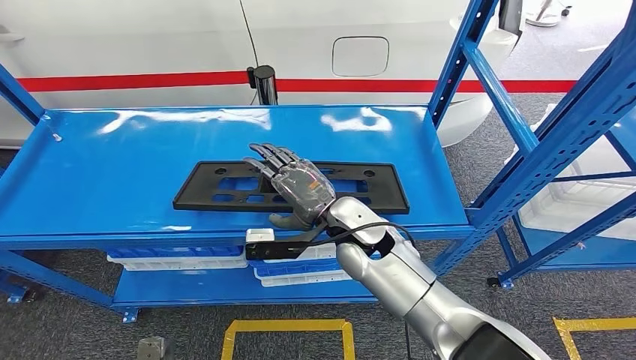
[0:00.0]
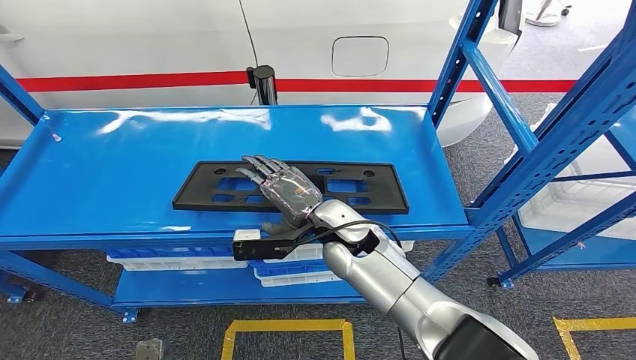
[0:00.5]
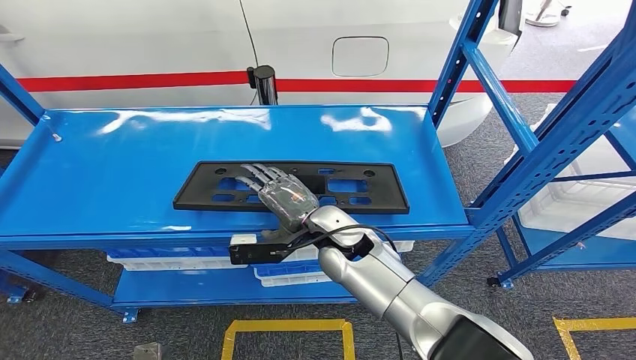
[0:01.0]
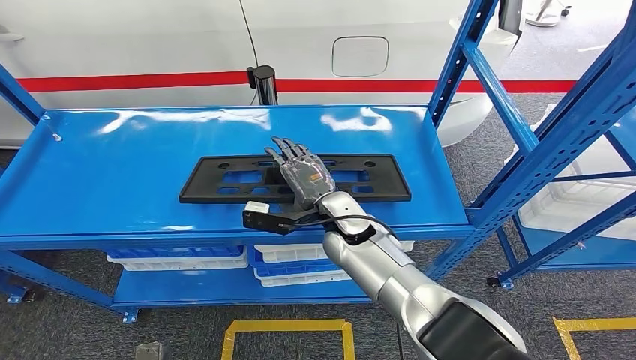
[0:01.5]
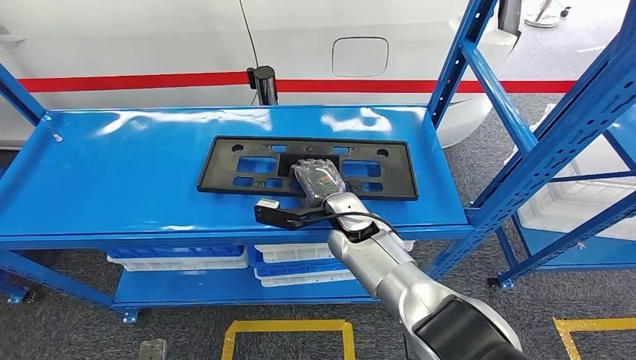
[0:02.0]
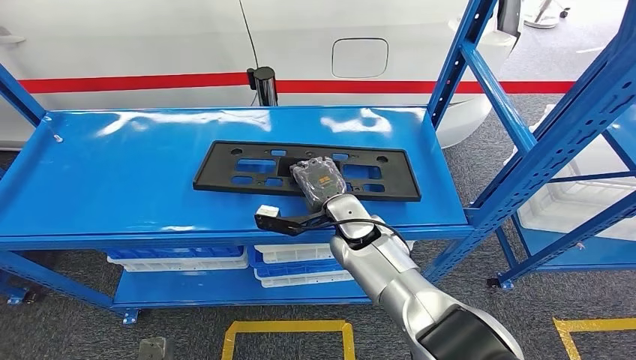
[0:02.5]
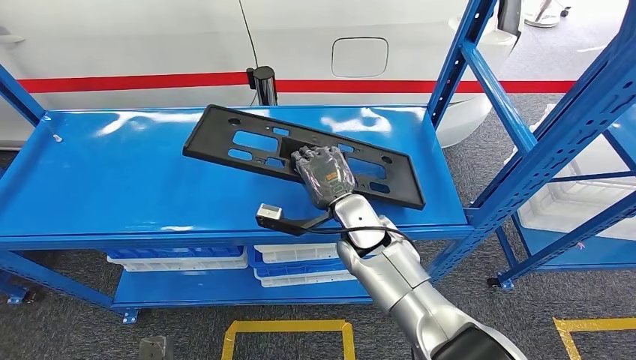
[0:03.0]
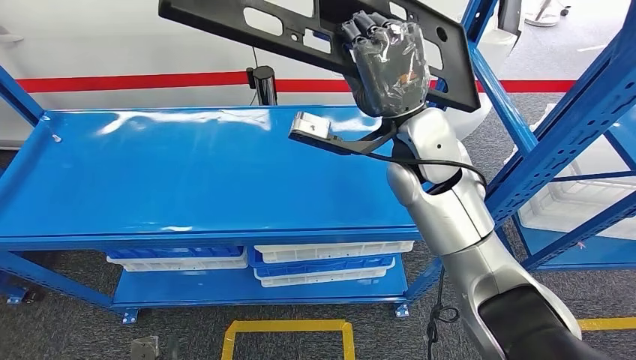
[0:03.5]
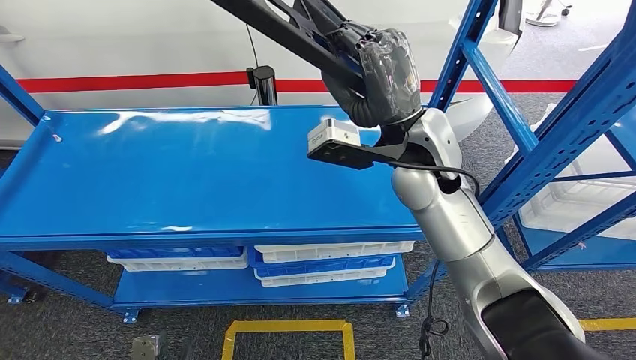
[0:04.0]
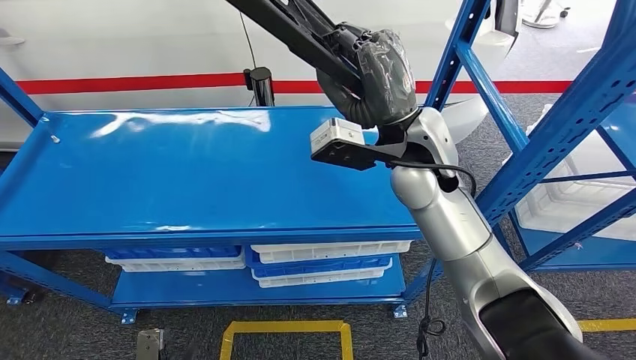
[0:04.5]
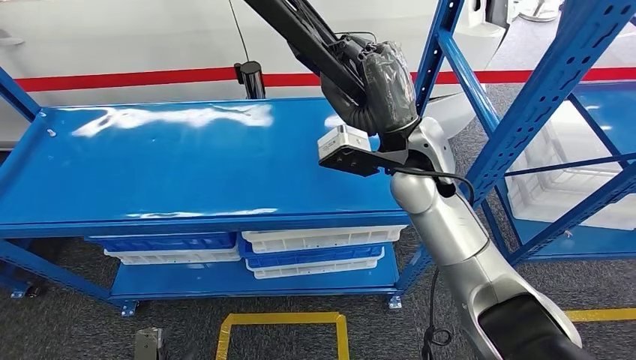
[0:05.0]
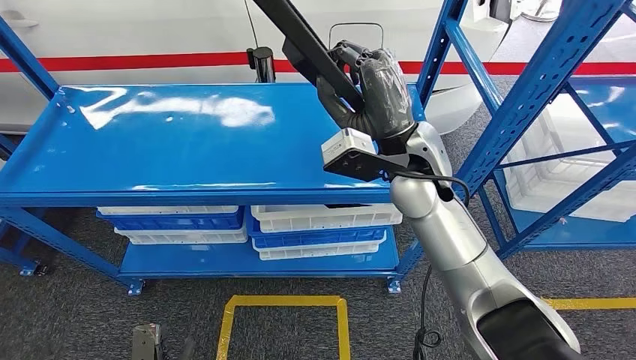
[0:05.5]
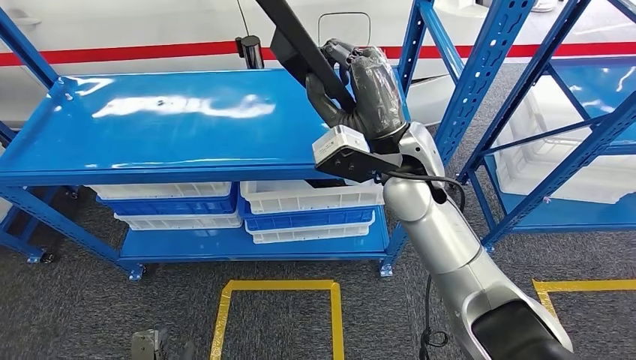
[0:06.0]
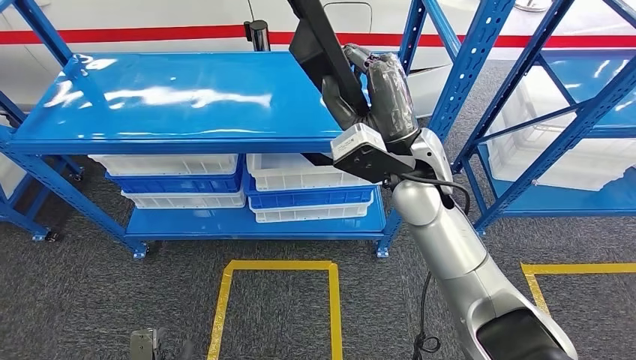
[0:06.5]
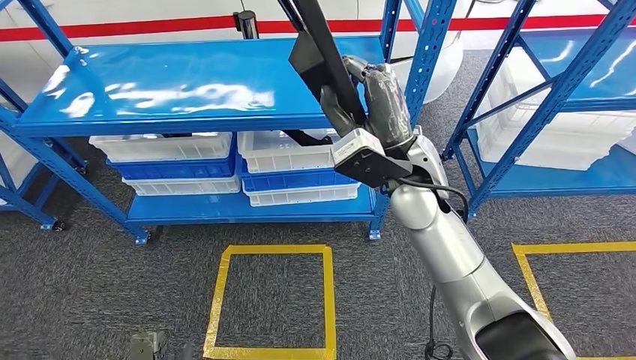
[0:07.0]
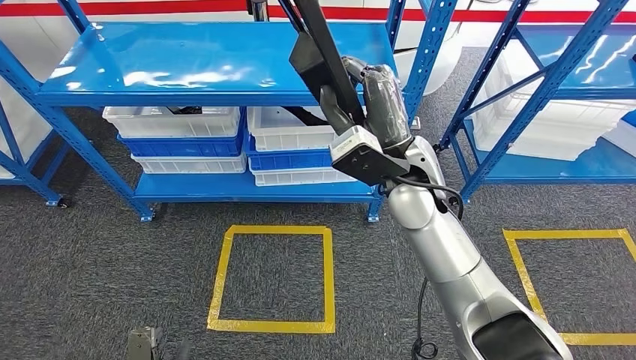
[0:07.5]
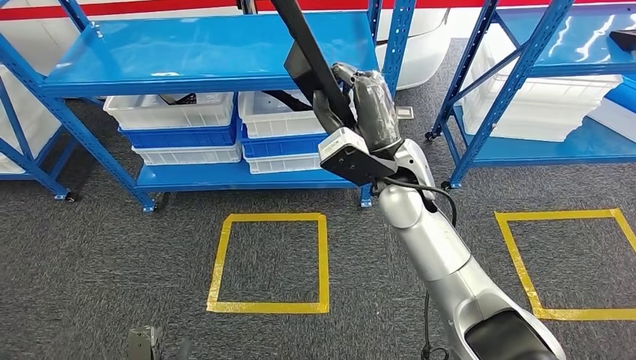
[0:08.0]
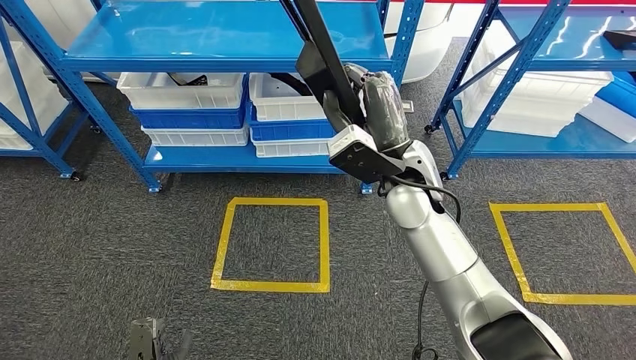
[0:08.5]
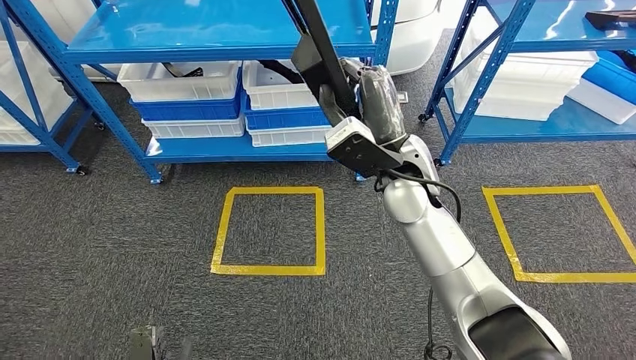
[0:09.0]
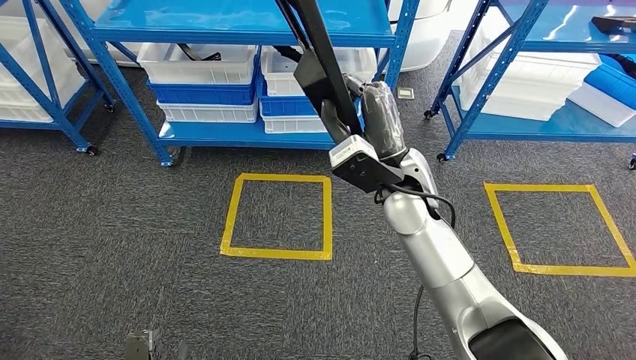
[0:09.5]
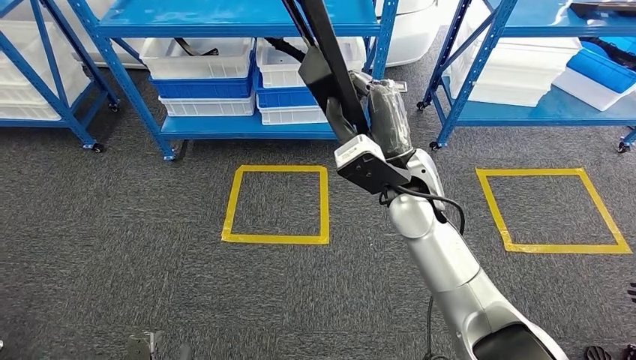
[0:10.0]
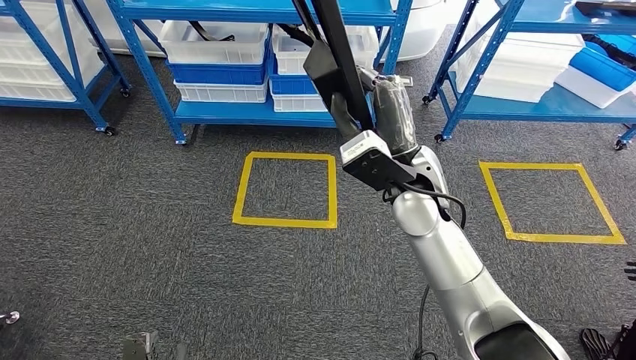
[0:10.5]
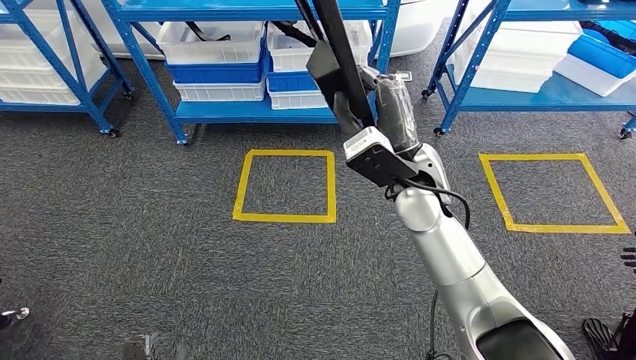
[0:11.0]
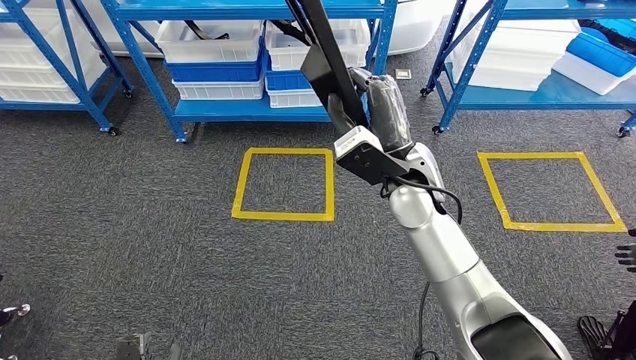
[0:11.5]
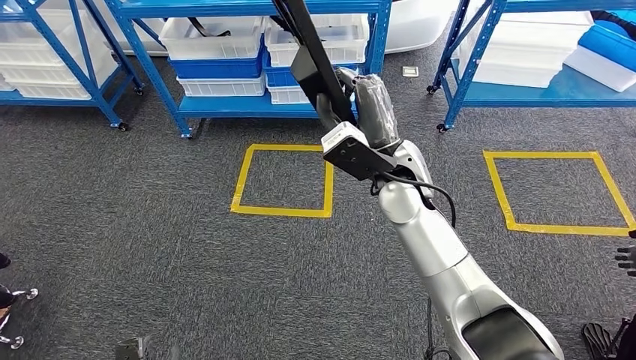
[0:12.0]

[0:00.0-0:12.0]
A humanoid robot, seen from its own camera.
Step, 0:00.0 to 0:06.0: Pick up the large material from the shelf.
0:00.0 to 0:02.0: The right hand moves forward, roughly 5 cm.

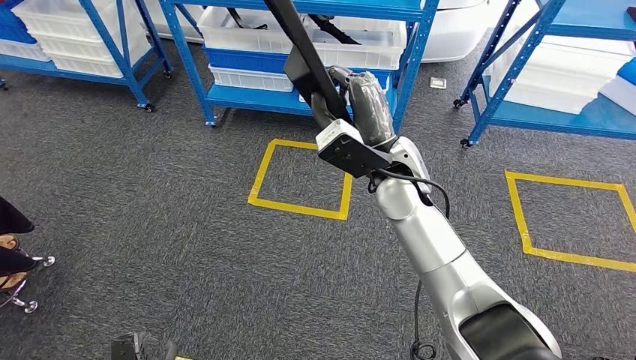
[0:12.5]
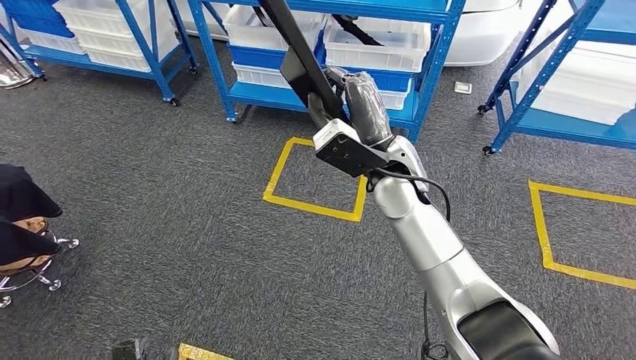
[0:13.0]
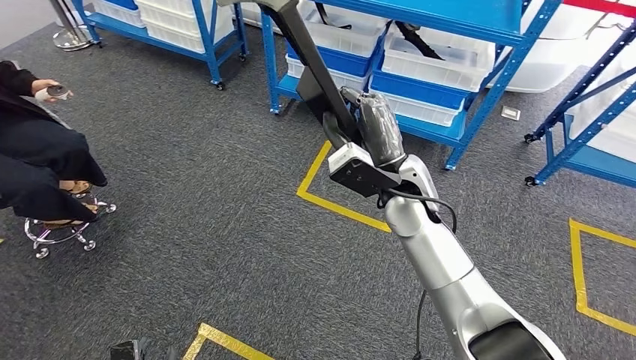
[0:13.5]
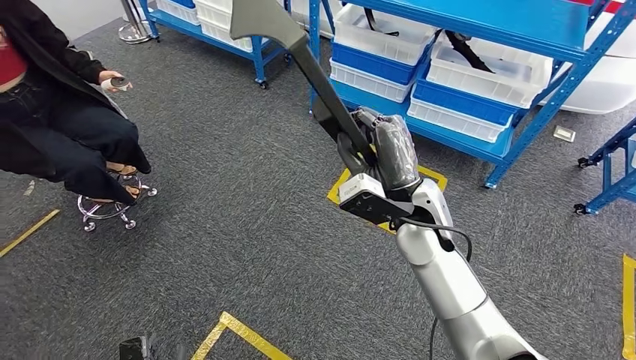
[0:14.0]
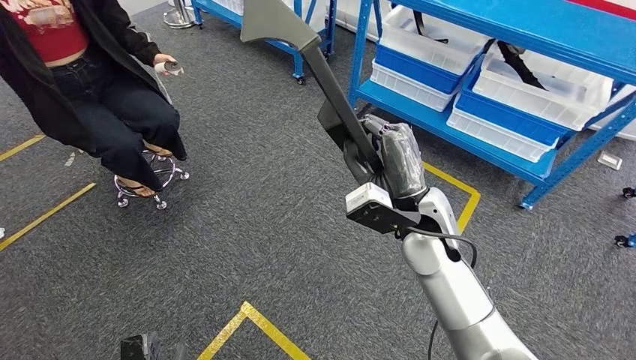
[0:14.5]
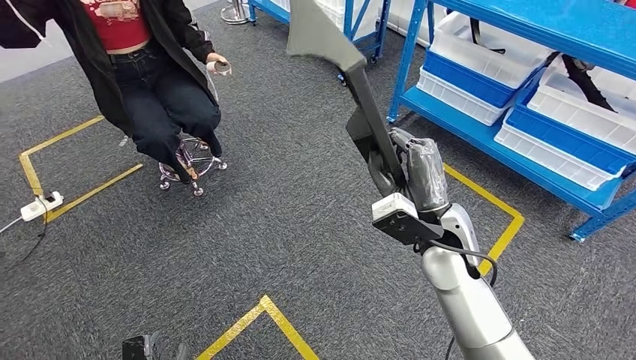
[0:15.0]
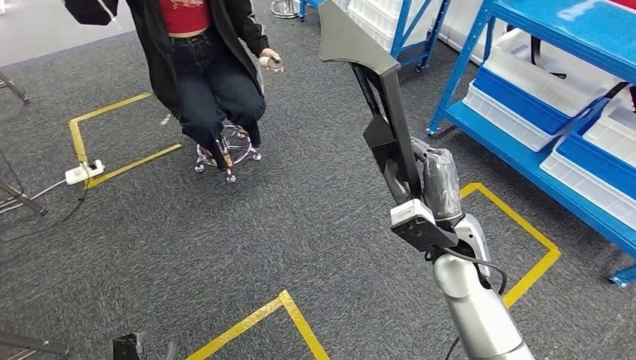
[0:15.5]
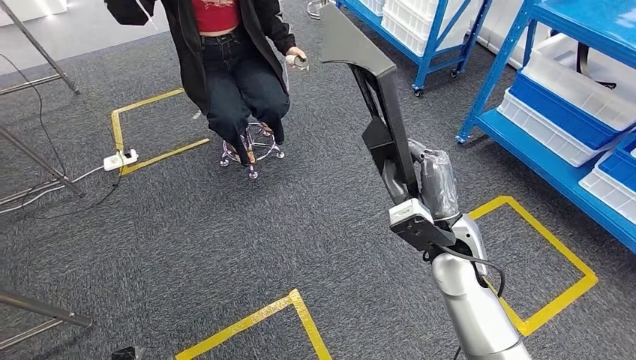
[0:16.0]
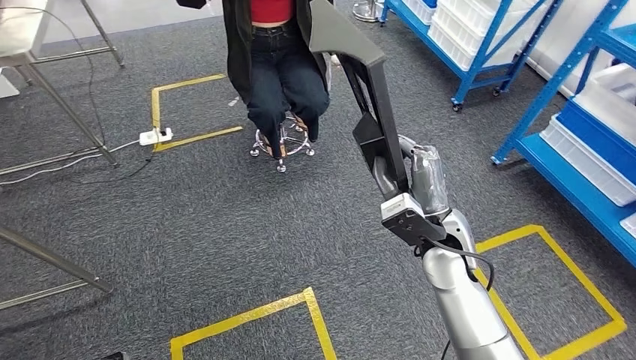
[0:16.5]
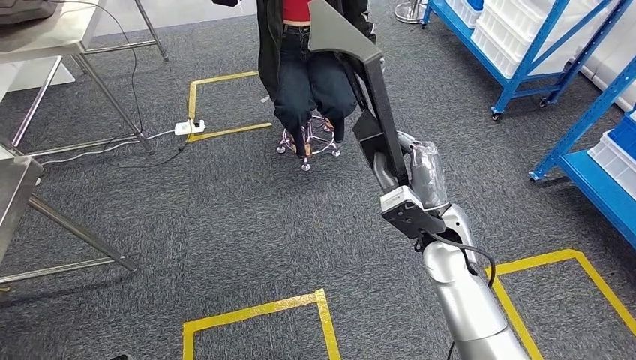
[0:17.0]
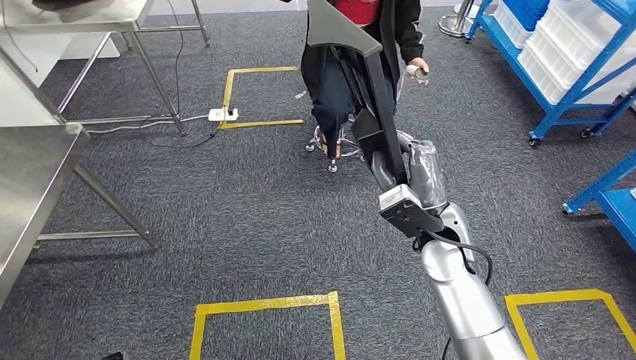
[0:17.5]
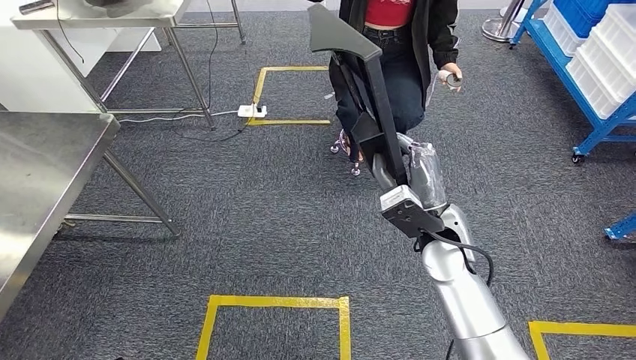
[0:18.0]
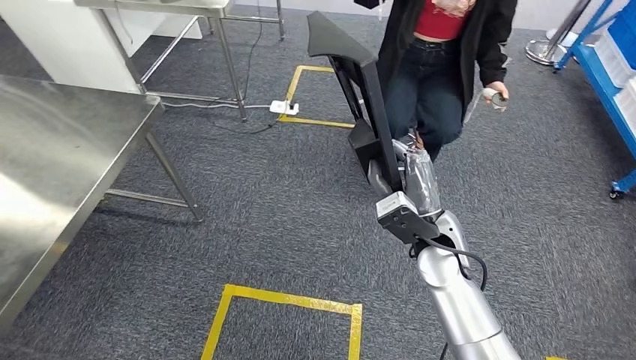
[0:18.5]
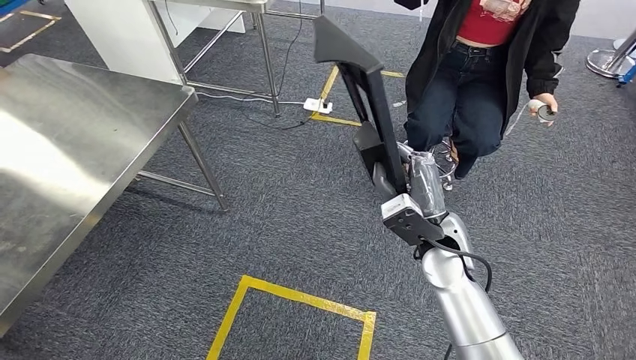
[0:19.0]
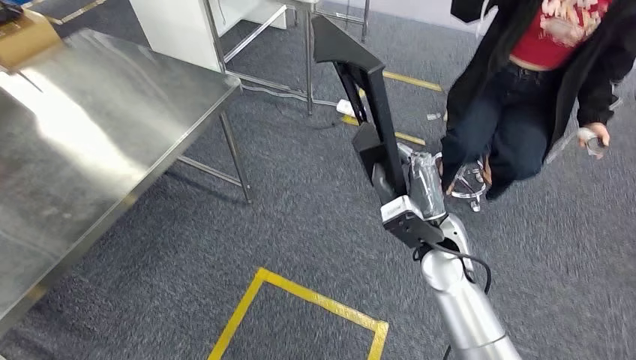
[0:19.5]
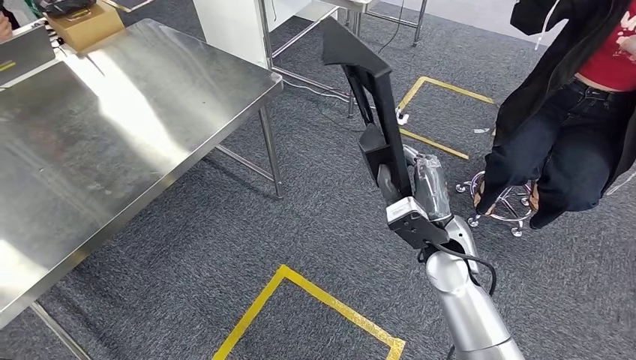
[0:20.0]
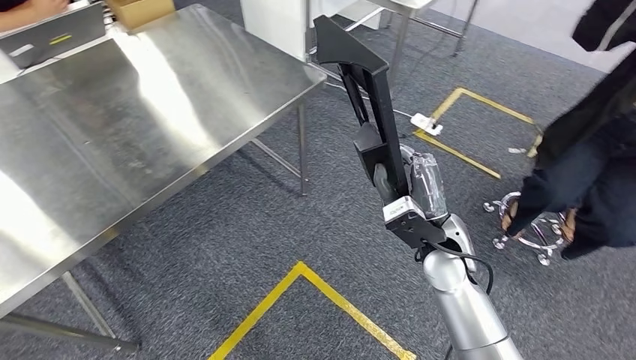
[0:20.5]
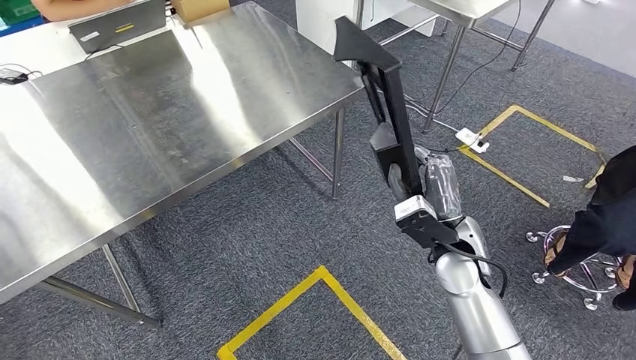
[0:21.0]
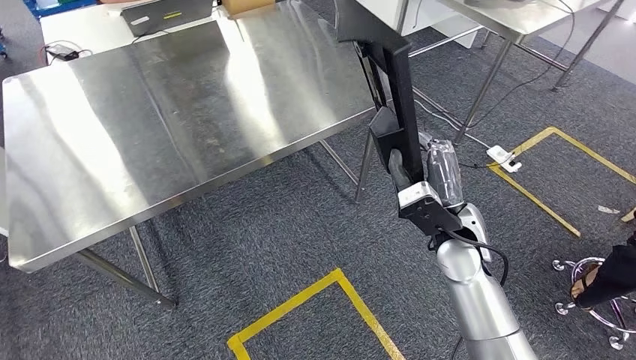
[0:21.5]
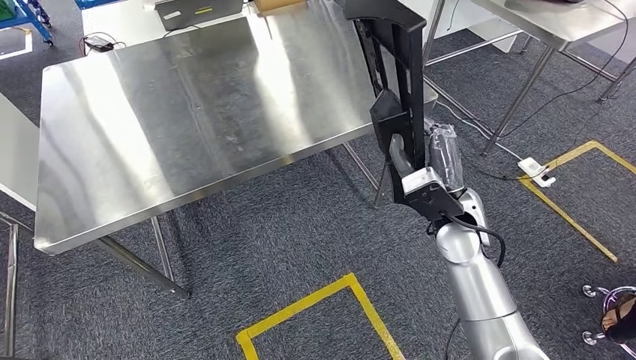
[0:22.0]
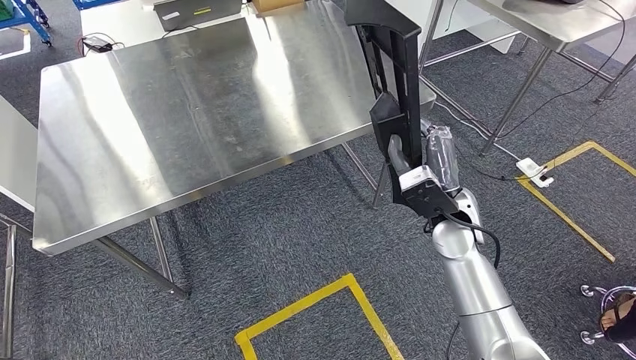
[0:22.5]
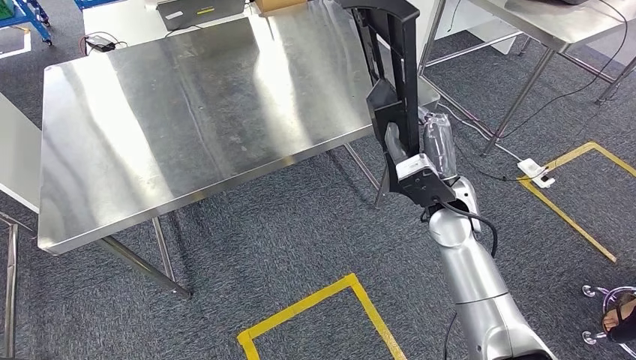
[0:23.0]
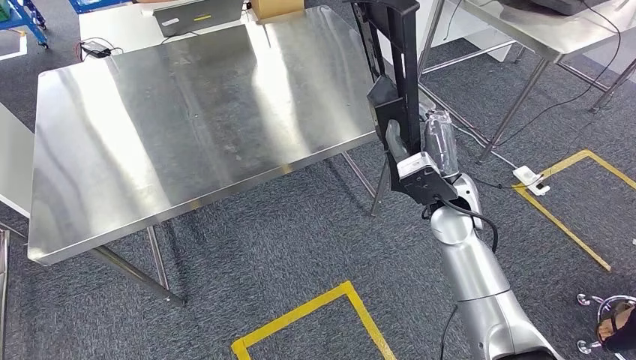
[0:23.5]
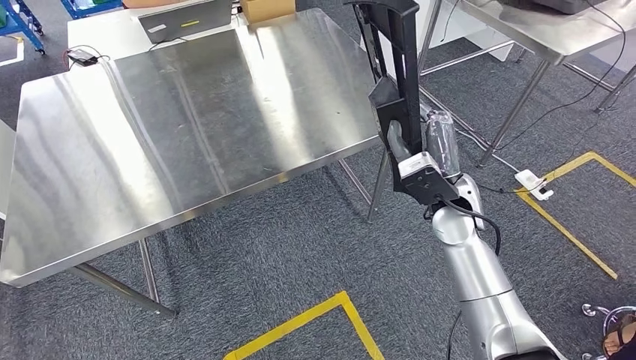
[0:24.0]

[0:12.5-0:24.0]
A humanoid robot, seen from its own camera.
Step, 0:12.5 to 0:23.0: Move the large material to the workbench.
